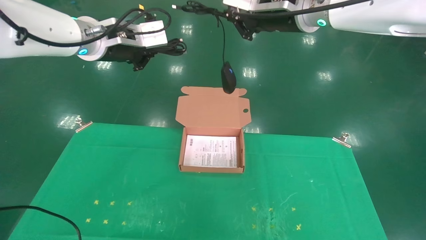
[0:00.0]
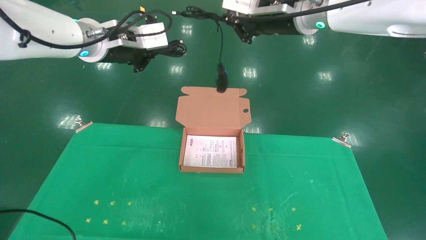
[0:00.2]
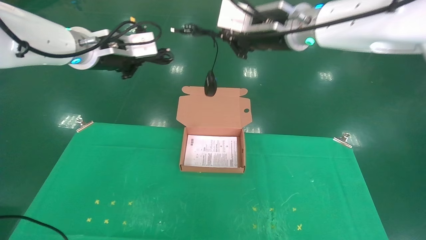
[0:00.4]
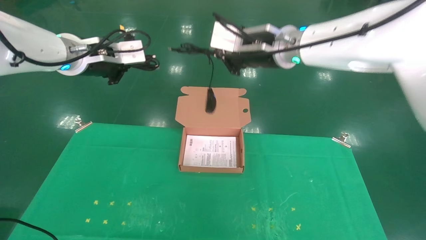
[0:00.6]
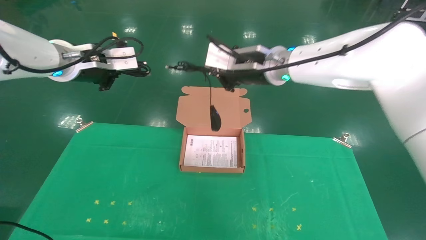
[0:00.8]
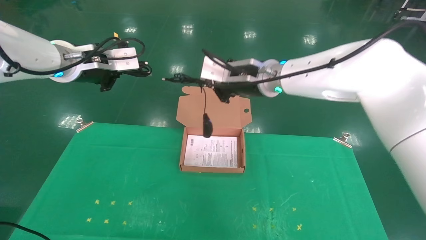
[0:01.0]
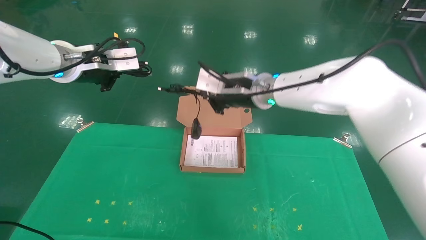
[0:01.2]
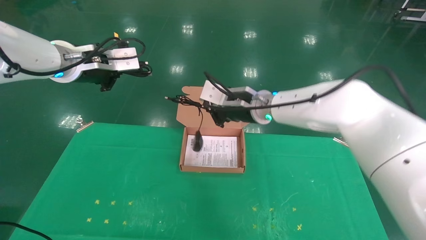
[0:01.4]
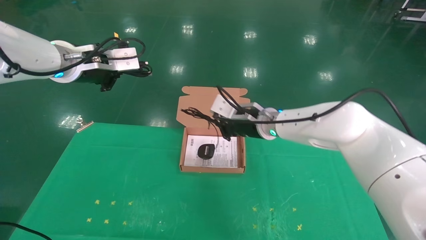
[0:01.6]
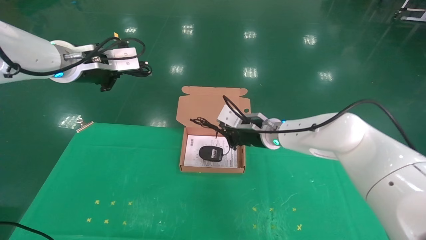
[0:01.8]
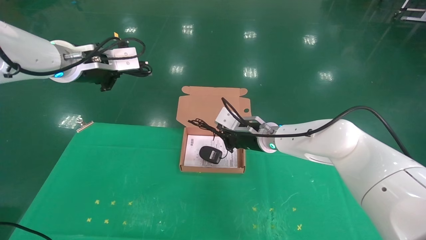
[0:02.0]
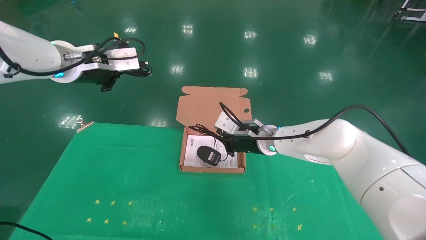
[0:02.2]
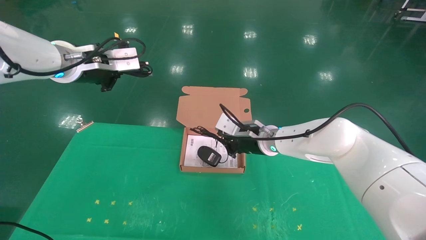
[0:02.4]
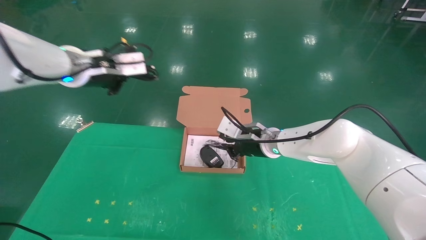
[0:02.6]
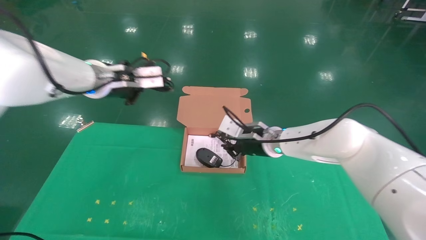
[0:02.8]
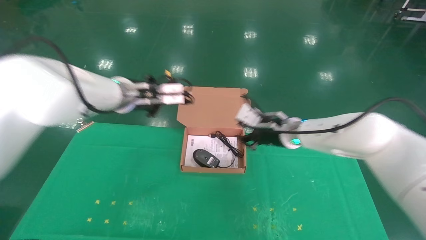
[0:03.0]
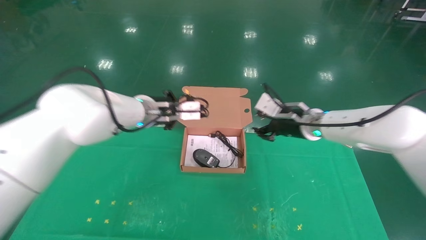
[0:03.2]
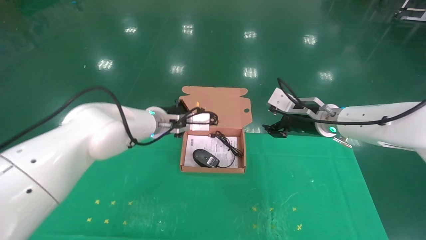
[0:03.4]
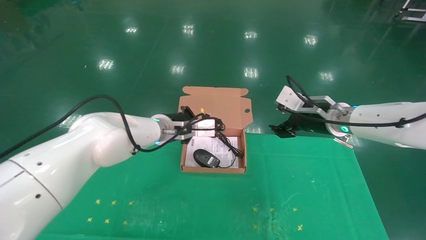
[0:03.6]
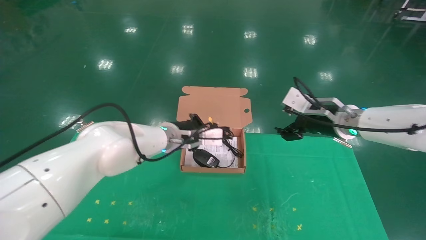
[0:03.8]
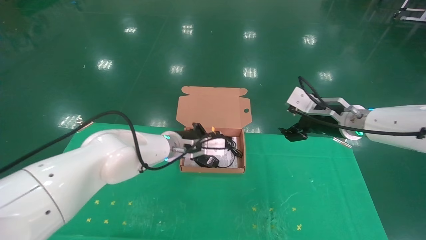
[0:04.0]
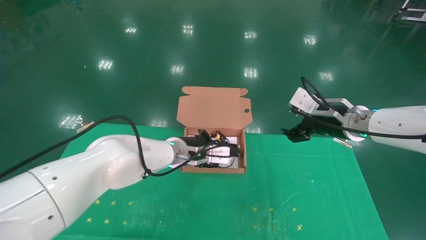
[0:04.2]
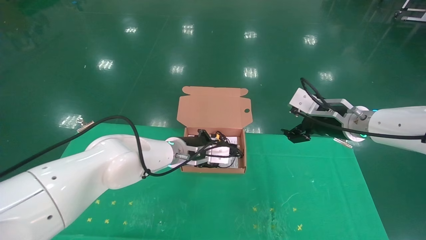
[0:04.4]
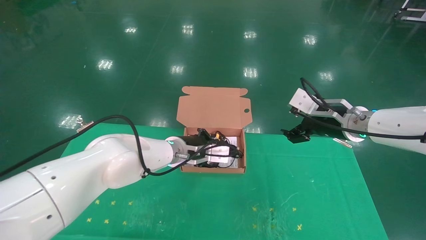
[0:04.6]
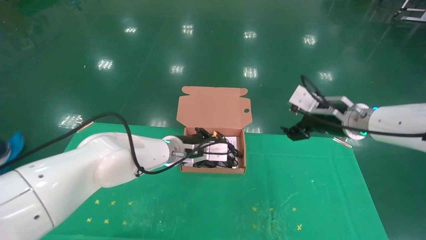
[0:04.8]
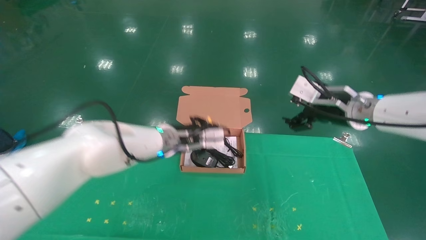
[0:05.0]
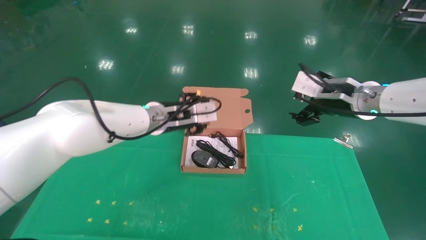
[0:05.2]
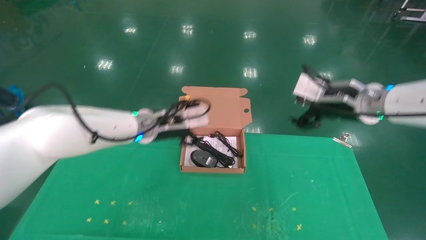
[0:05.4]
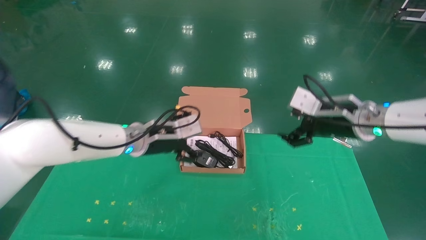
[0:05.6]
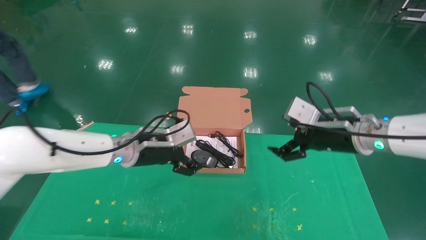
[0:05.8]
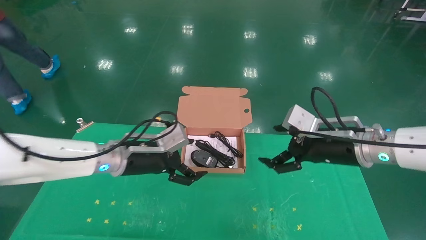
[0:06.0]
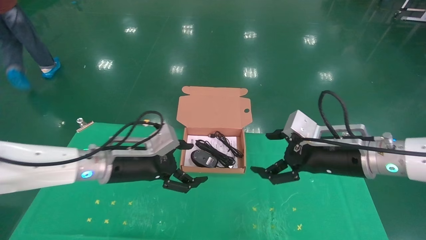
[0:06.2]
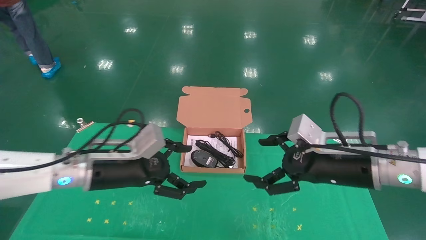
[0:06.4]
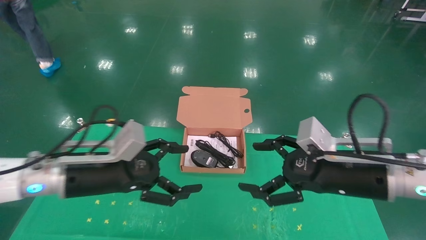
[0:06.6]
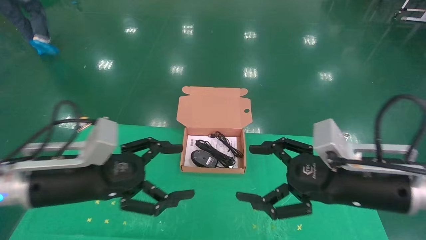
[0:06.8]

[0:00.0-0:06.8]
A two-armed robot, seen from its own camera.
Task of the whole recording: grasp data cable left put into box grasp mouse right put into box.
Step, 0:00.0 to 0:05.2: Place the mouse and power cord into the box.
0:00.0 to 0:01.4: The right gripper heads downward and forward, covering roughly 20 cm. The left gripper moves about 5 cm.
0:01.4 to 0:02.8: The left gripper ends up some 5 cm from where it was. Meanwhile the right gripper shifts roughly 5 cm downward.
0:02.8 to 0:04.0: The left gripper travels downward and to the right by approximately 20 cm, while the right gripper goes about 15 cm to the right and upward, and opens up.
0:04.0 to 0:05.4: The left gripper moves about 5 cm, and opens.
0:05.4 to 0:06.8: The left gripper is displaced backward and to the left by about 20 cm, and opens. Meanwhile the right gripper is displaced backward and downward by approximately 15 cm.
